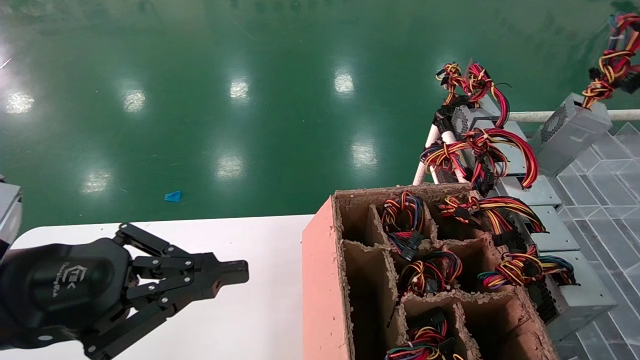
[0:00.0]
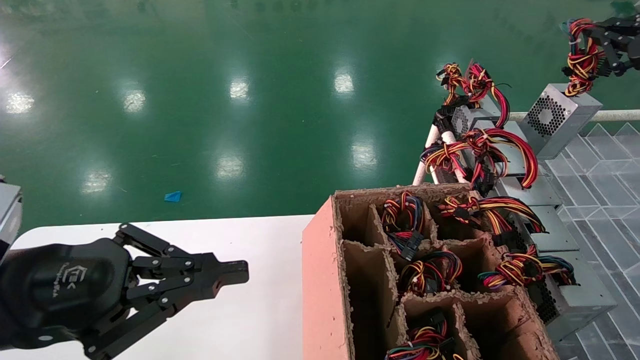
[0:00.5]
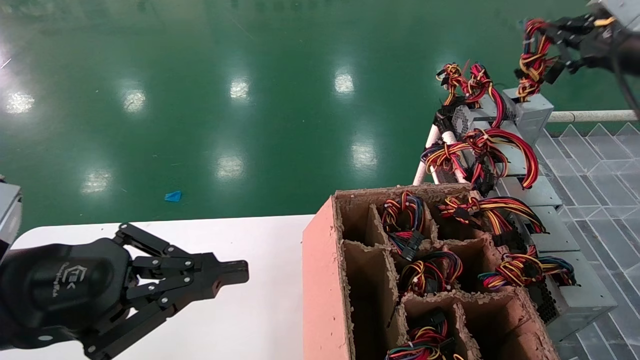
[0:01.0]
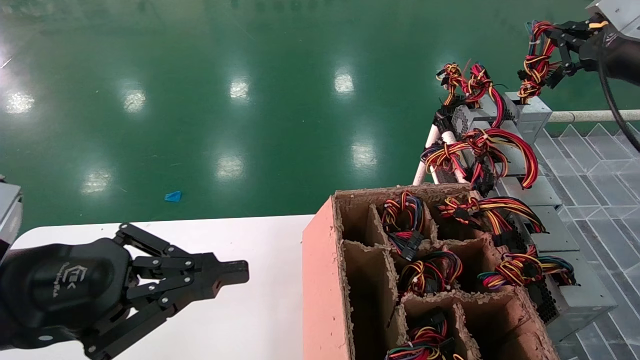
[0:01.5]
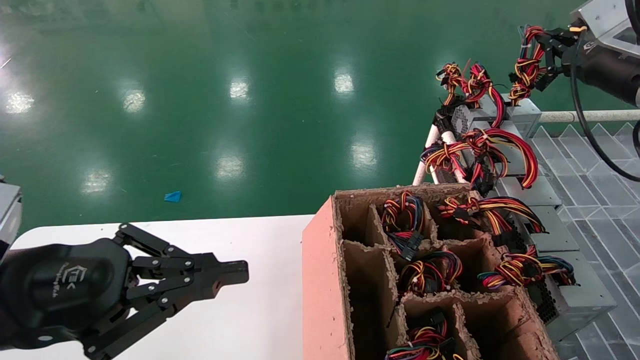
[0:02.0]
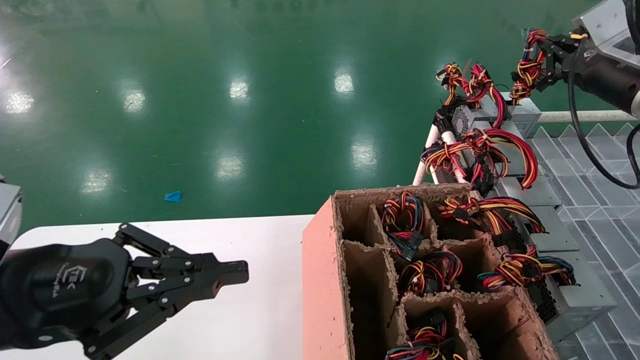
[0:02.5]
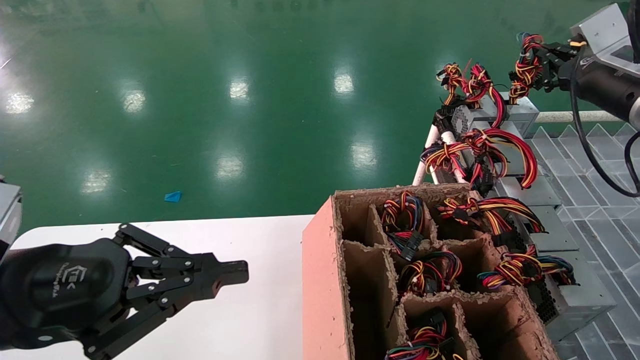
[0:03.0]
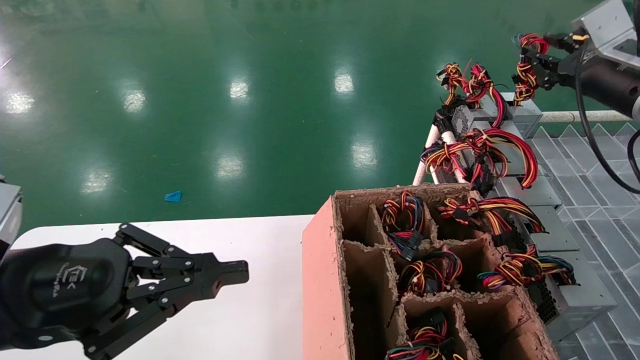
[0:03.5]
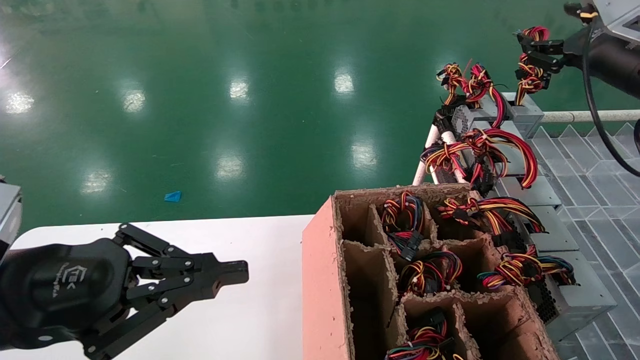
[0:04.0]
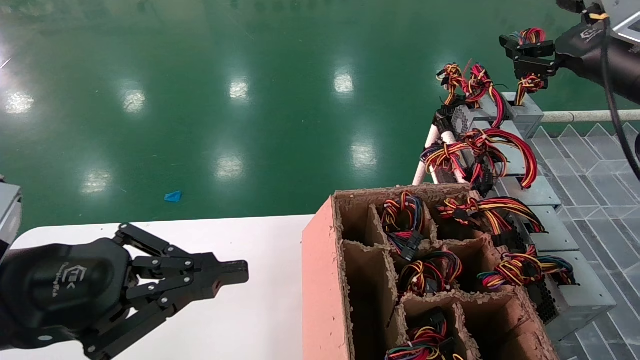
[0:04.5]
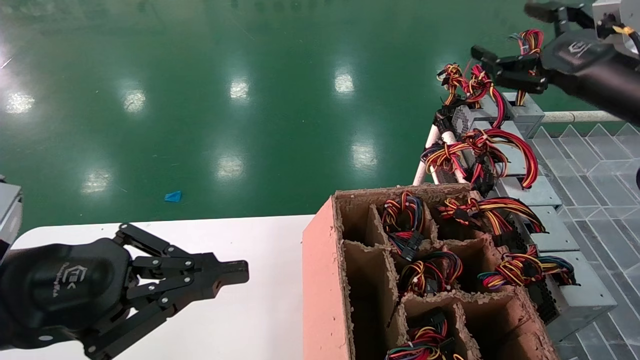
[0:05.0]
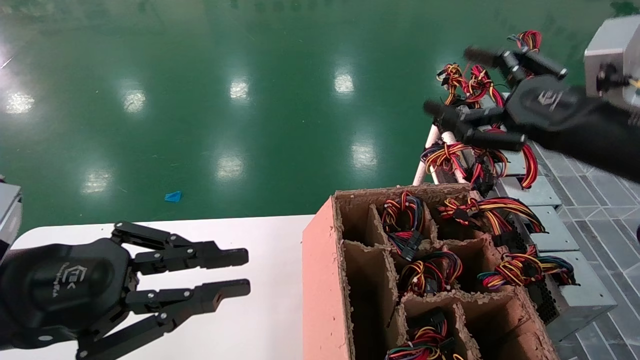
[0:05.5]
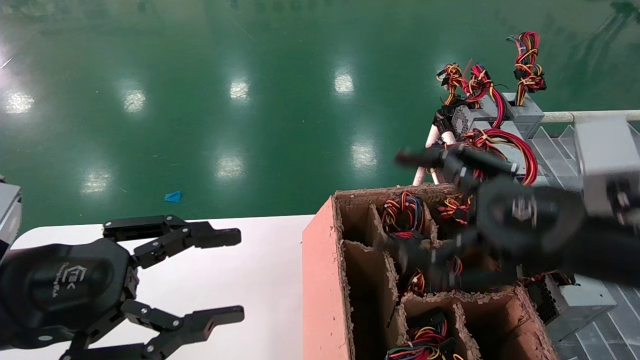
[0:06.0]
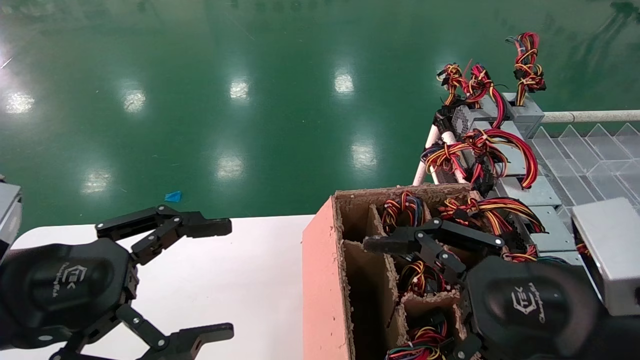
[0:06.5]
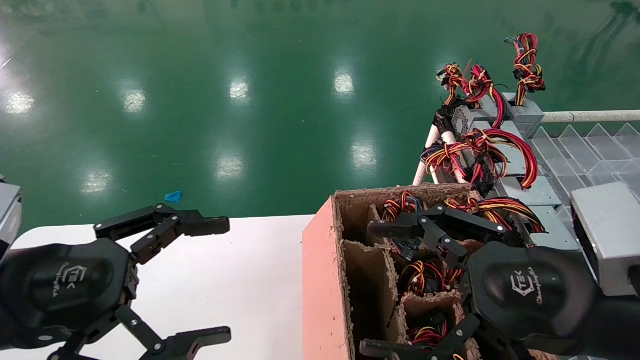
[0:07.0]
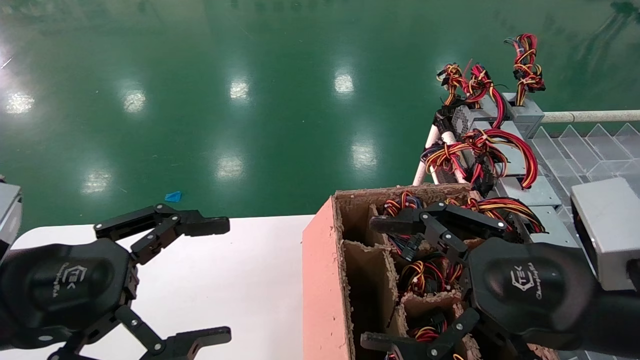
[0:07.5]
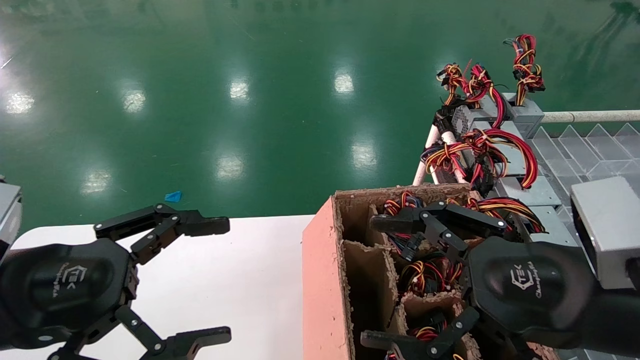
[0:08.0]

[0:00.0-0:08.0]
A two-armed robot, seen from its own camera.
Step, 0:00.0 to 0:03.0: Place the main unit power supply in the designated area.
0:00.0 to 0:02.0: The right gripper moves forward and to the left, some 10 cm.
0:02.0 to 0:04.0: The right gripper opens up.
0:04.0 to 0:06.0: The right gripper travels backward, to the left and downward by about 25 cm, and opens; the left gripper opens.
0:06.0 to 0:08.0: The left gripper opens.
